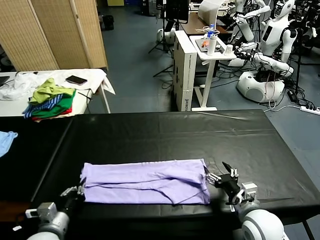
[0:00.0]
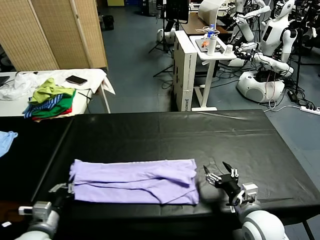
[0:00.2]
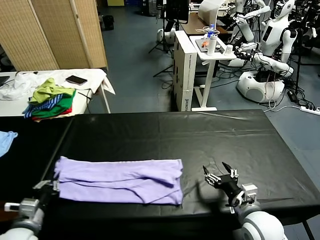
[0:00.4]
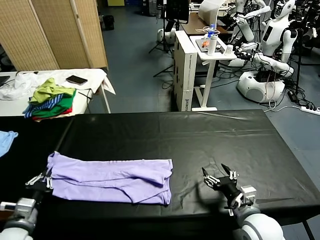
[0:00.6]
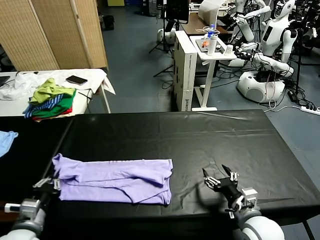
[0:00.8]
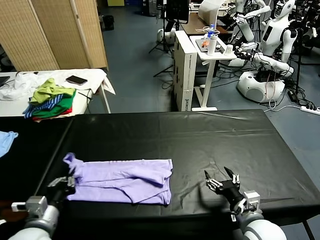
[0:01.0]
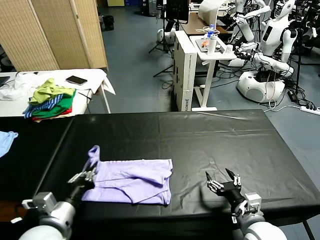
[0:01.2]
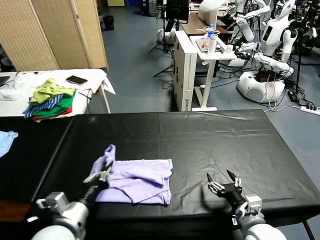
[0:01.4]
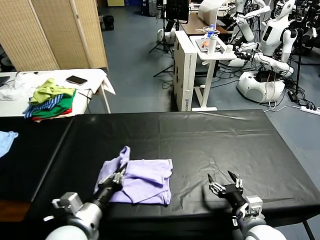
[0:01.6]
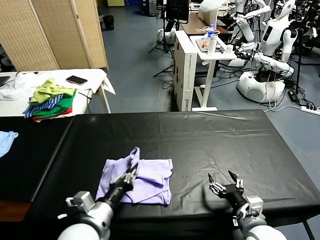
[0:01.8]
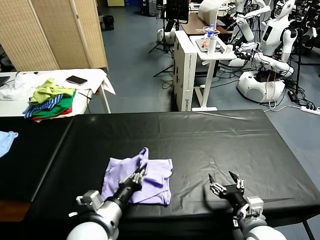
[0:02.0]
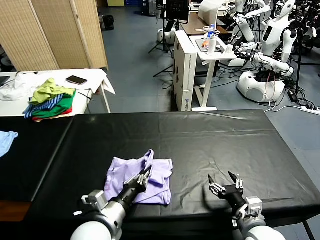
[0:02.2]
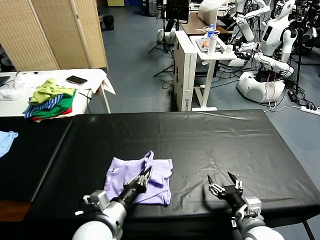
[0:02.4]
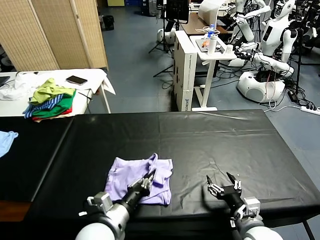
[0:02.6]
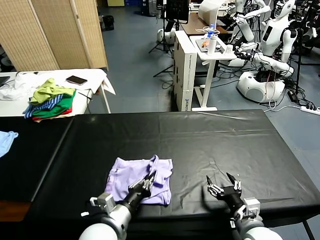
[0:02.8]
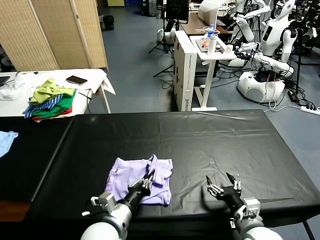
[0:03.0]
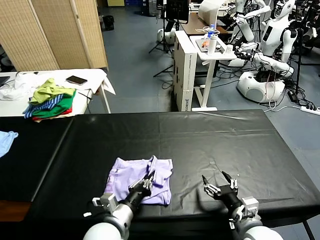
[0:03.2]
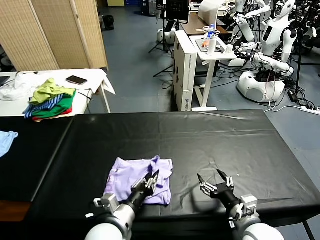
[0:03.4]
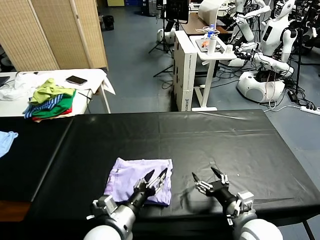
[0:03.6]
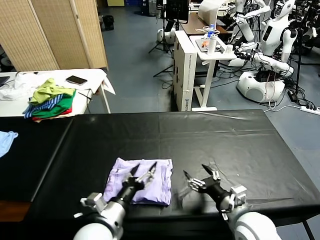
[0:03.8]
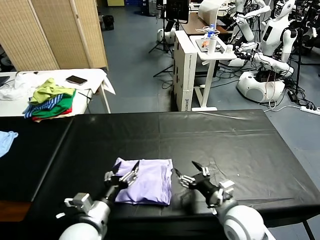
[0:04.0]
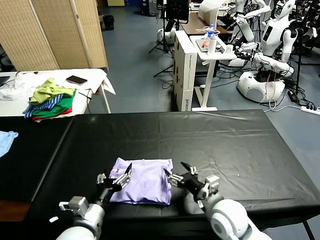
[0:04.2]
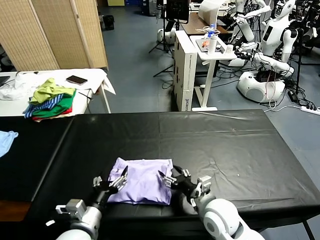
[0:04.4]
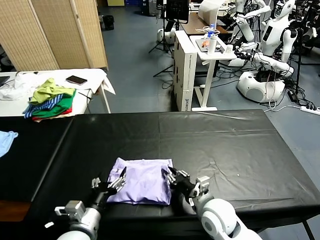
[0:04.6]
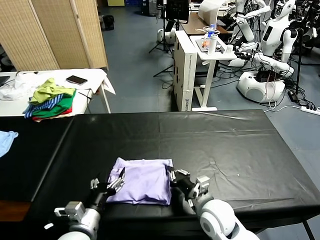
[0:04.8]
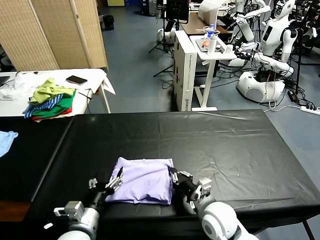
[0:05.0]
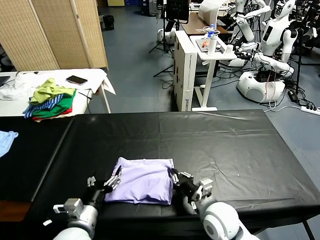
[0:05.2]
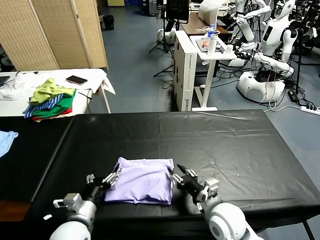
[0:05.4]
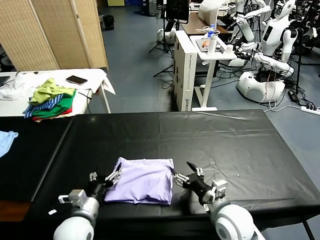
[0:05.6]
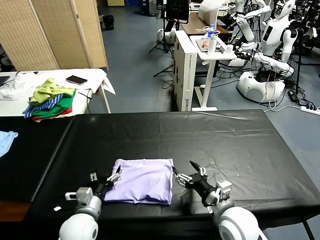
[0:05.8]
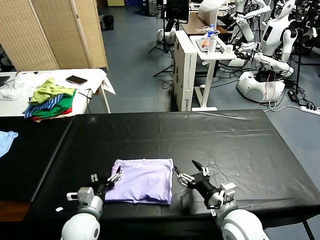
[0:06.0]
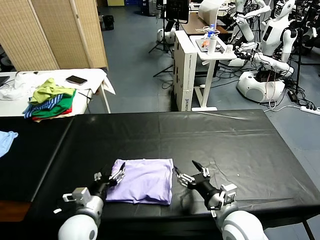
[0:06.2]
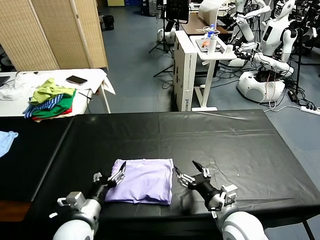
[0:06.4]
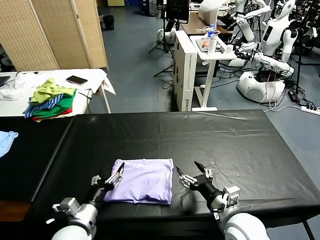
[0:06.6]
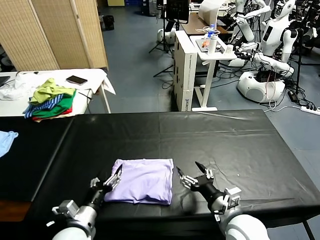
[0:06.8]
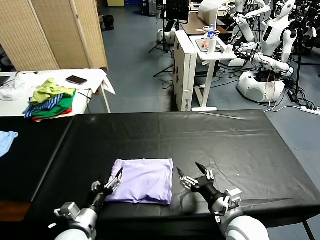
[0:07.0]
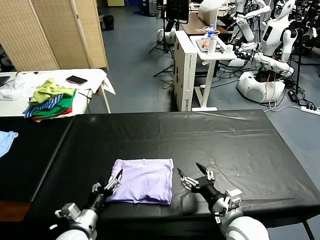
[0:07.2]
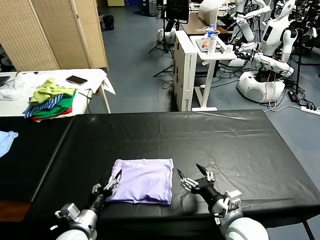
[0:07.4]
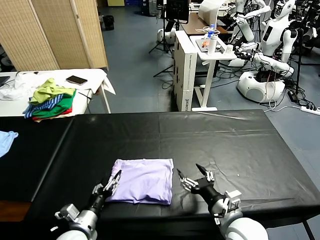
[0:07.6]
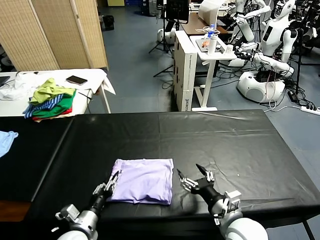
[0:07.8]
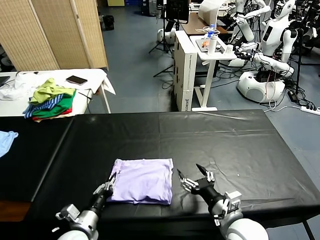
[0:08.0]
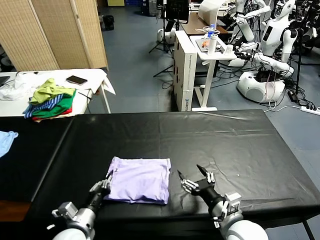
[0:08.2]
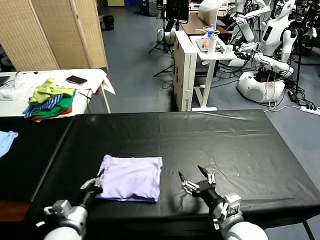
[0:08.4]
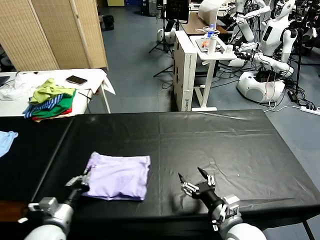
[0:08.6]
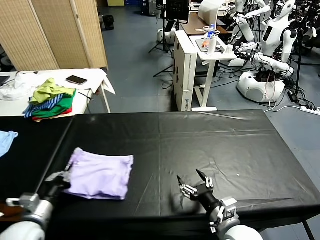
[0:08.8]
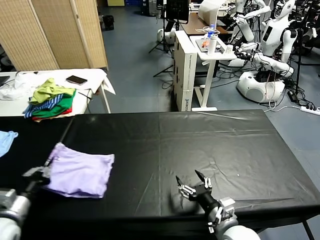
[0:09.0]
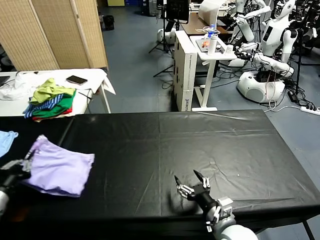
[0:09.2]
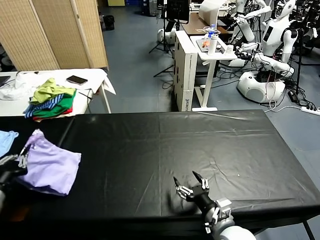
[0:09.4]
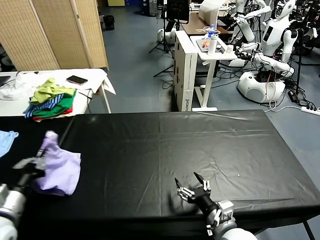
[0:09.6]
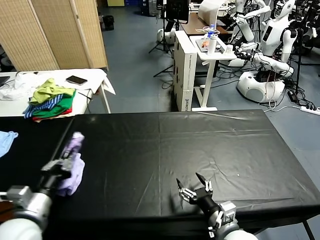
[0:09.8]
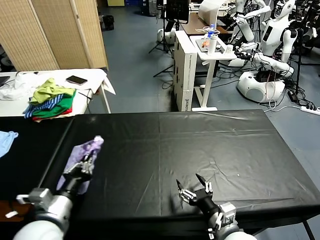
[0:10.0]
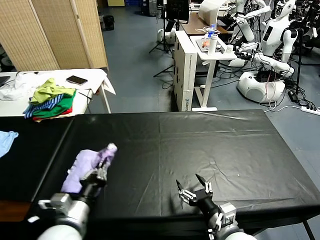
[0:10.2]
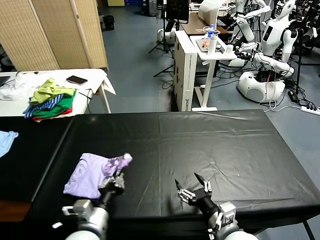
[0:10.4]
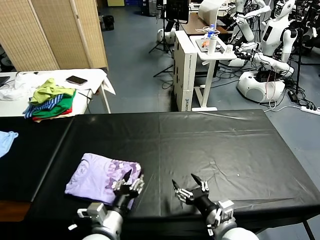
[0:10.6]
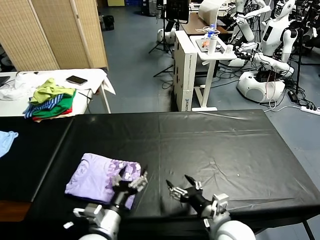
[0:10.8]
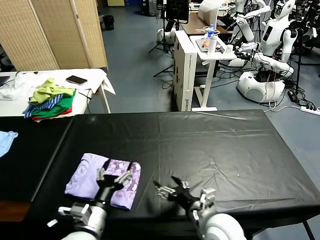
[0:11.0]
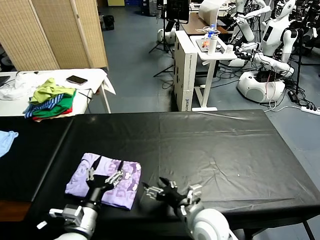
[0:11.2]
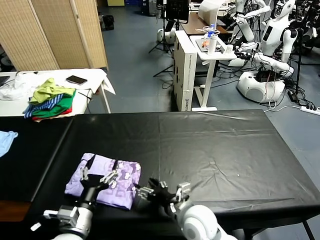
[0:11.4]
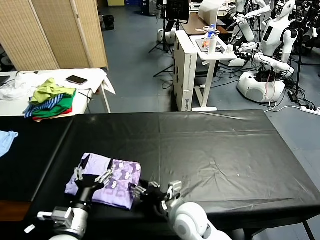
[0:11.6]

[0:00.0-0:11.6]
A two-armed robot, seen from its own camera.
Task of the whole recording: fold and organize the clothes.
Step, 0:00.0 to 0:03.6: use the left gripper to drag the left edge of the fabric to the left and folds it over the right edge.
Step, 0:03.8 to 0:10.8: Flip the folded clothes over with left gripper.
0:00.0 to 0:01.4: The left gripper travels to the right and upward by roughly 10 cm.
0:01.4 to 0:02.8: The left gripper is displaced to the right and downward by approximately 10 cm.
0:02.8 to 0:04.4: The left gripper travels to the left by some 5 cm, and opens. The right gripper travels to the left and forward by about 10 cm.
0:04.4 to 0:05.8: The left gripper heads forward, covering about 5 cm. Meanwhile the right gripper changes place by some 5 cm, and closes and opens again.
0:07.2 to 0:08.8: The left gripper travels to the left and upward by some 10 cm, and closes.
0:08.8 to 0:10.2: The left gripper moves to the right, some 10 cm.
0:10.2 to 0:11.6: The left gripper reaches about 10 cm to the right, then returns, and opens; the right gripper heads to the left and forward, covering about 15 cm.

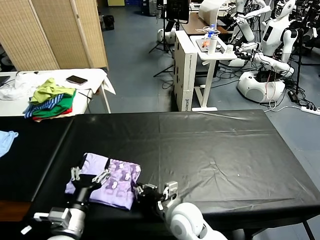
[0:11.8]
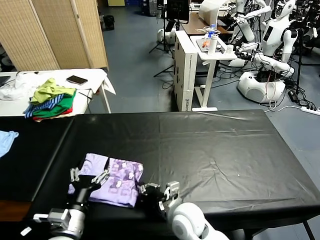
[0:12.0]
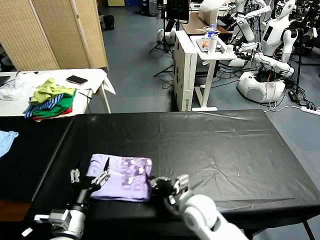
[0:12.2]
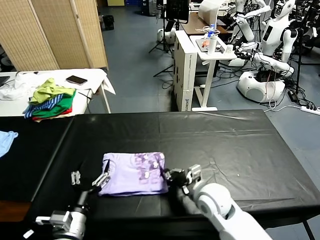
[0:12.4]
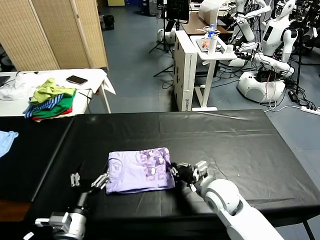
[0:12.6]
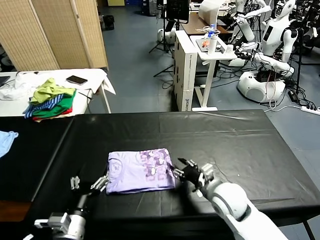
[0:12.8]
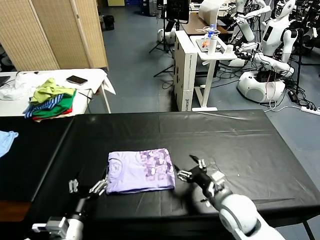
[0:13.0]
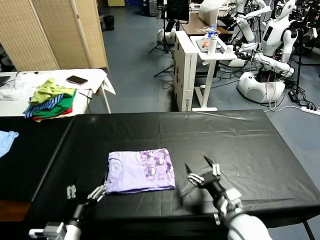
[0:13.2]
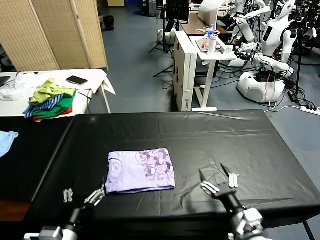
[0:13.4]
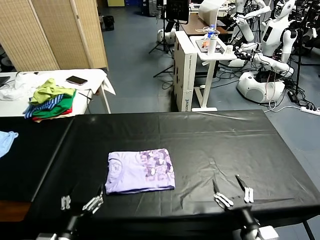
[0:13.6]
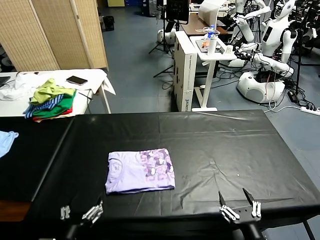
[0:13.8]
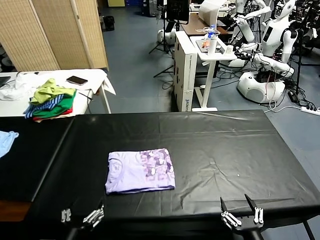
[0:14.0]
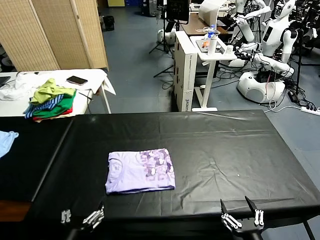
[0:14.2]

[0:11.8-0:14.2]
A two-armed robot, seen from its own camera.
Task of the whole recording: fold and organize the clothes.
Step, 0:11.8 to 0:13.0: Drag the clothes to the center of the table.
0:11.8 to 0:13.0: The right gripper shifts roughly 15 cm to the right, and opens its fingers.
0:13.0 to 0:14.2: The right gripper is displaced backward by about 20 cm. Meanwhile the left gripper moves backward, some 5 cm.
